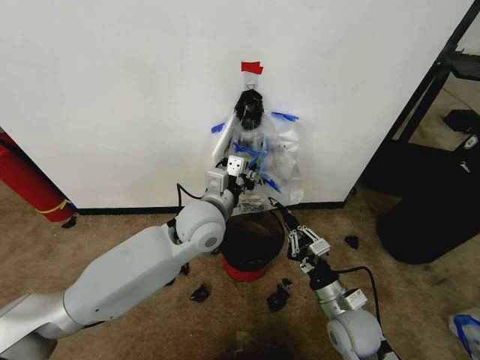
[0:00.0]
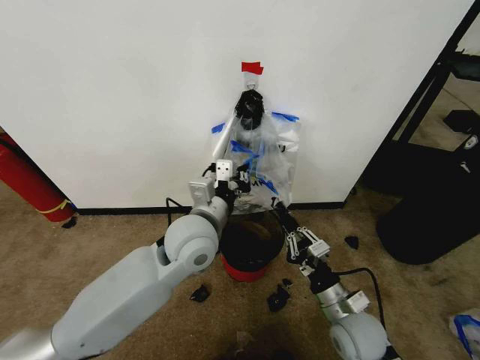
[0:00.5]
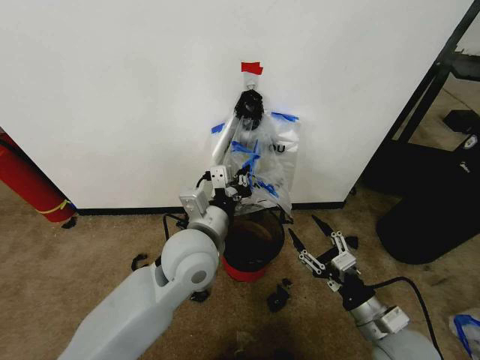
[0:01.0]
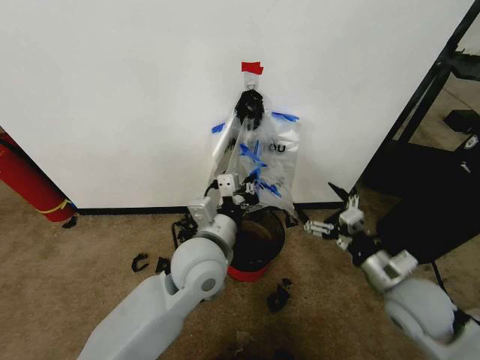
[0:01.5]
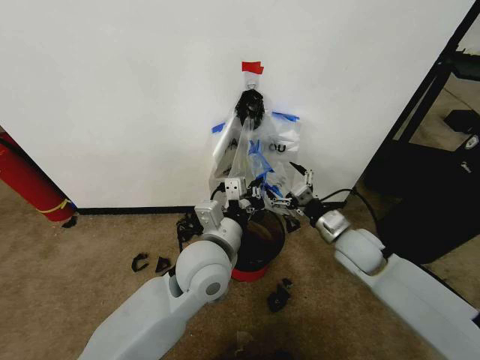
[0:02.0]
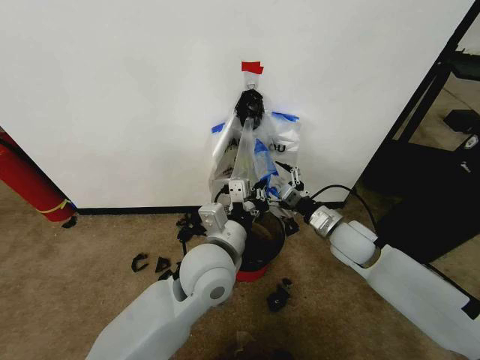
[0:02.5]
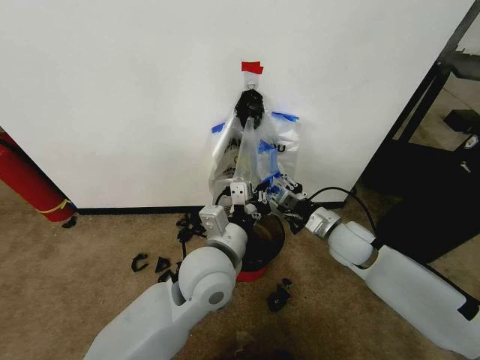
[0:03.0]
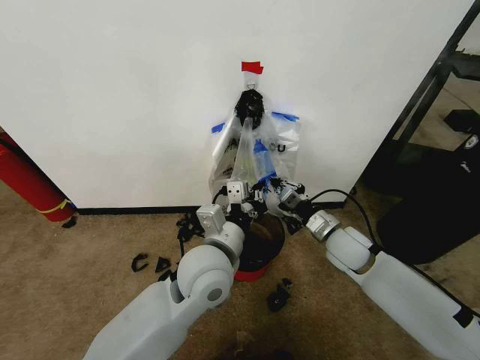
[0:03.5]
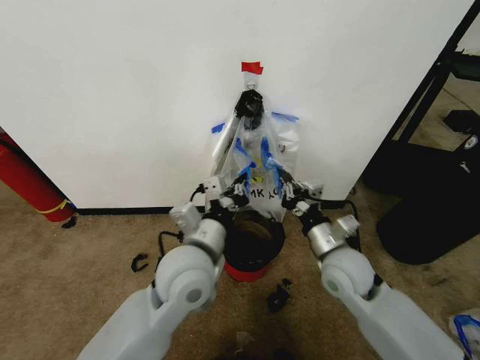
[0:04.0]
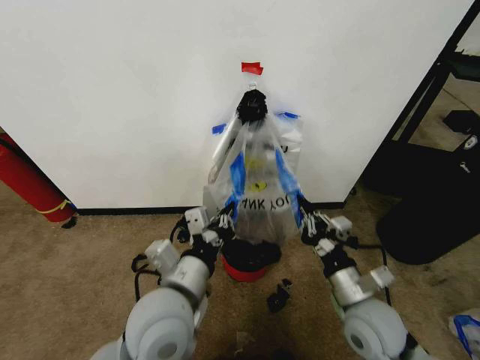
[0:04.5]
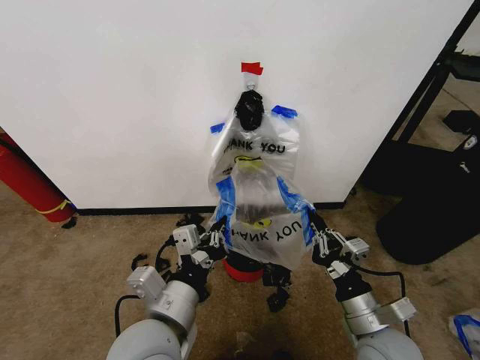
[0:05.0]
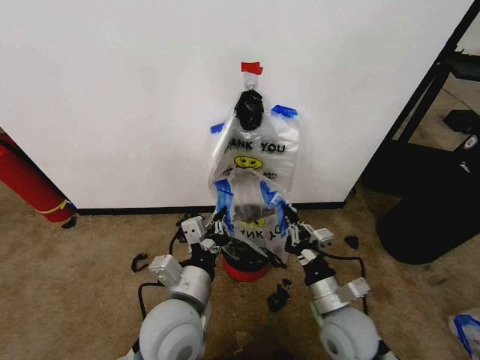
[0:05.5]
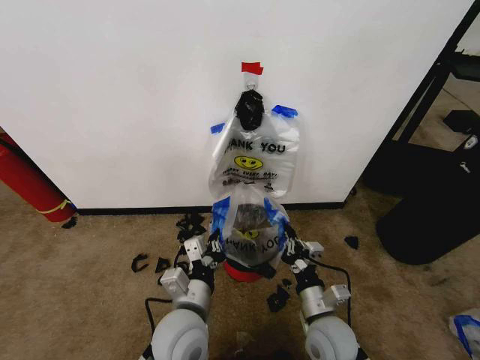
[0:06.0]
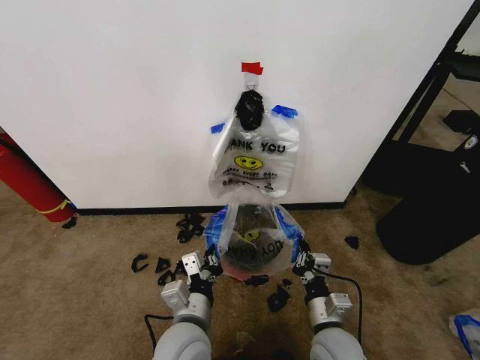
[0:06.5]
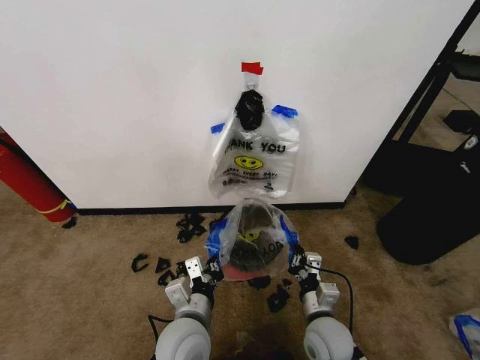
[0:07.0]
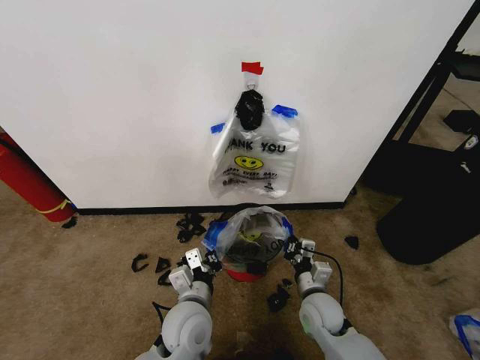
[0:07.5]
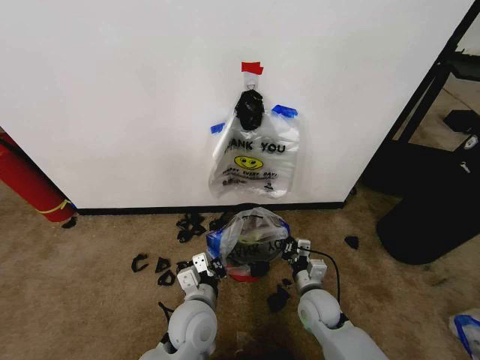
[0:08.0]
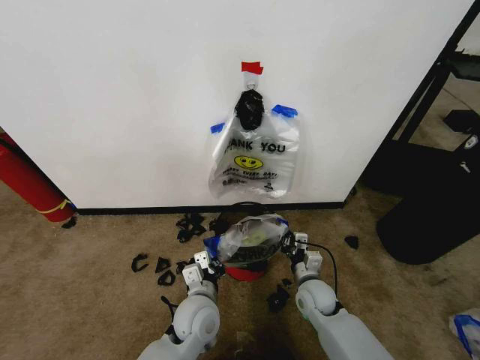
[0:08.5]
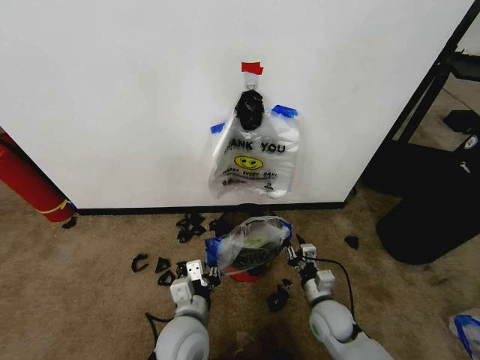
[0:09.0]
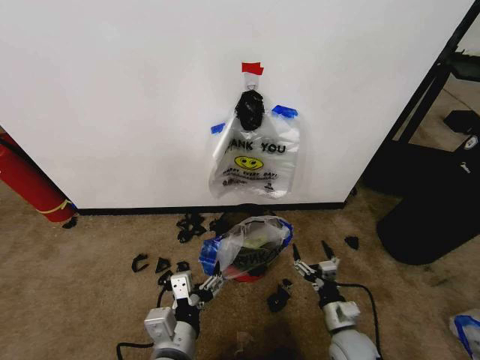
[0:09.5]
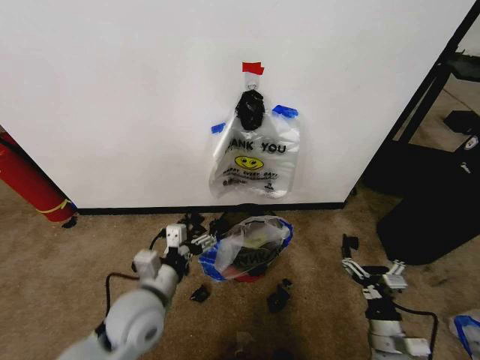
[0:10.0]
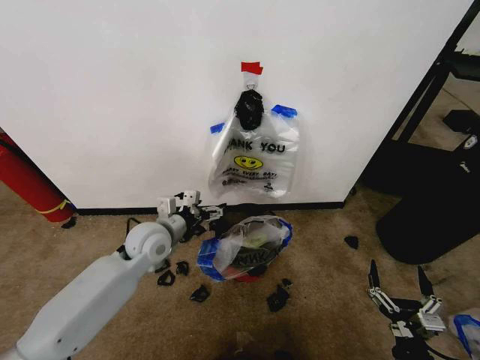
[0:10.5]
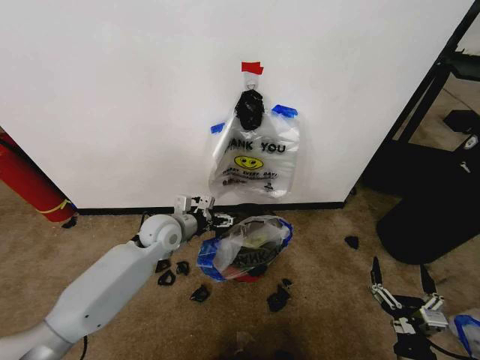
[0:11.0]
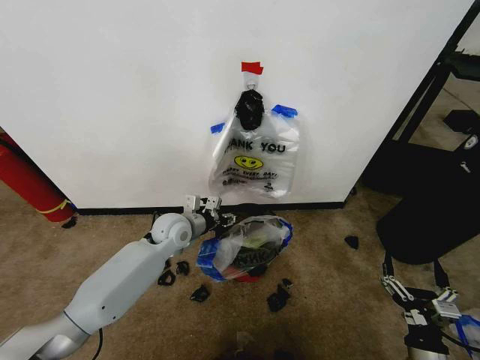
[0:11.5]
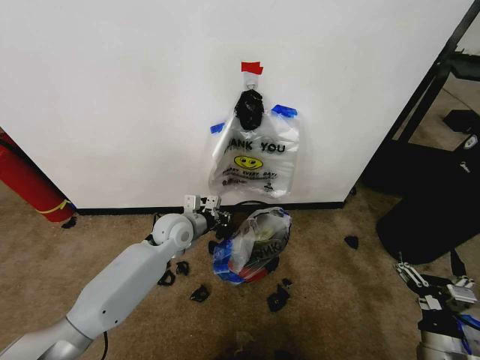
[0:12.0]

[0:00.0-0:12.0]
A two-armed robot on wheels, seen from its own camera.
Task of the whole recording: Pick up the garbage bag from the wall and place it over the trash bin.
0:00.0 to 0:02.0: The right gripper heads forward and upward, covering roughly 15 cm, and opens, while the left gripper is displaced backward by approximately 10 cm.
0:02.0 to 0:04.0: The right gripper travels backward and to the left by some 10 cm, and closes.
0:04.0 to 0:06.0: The grippers both shift downward and backward by approximately 15 cm.
0:06.0 to 0:08.0: The left gripper moves about 5 cm, while the right gripper travels forward and downward by roughly 10 cm.
0:08.0 to 0:10.0: The left gripper goes about 10 cm to the left and upward, and opens its fingers. Meanwhile the right gripper moves backward and to the right, about 15 cm, and opens.
0:10.0 to 0:12.0: The right gripper travels to the right by about 5 cm. The left gripper moves forward, roughly 25 cm, and closes up.

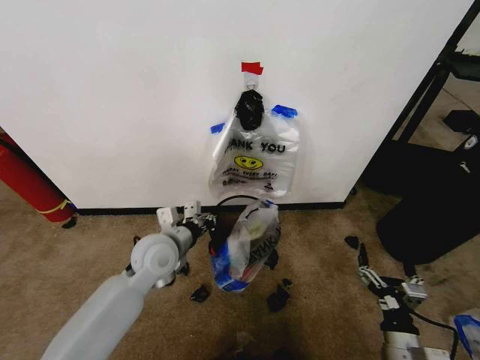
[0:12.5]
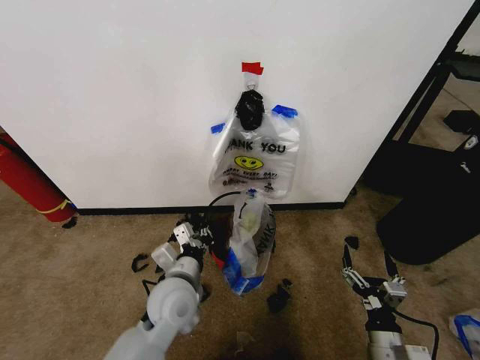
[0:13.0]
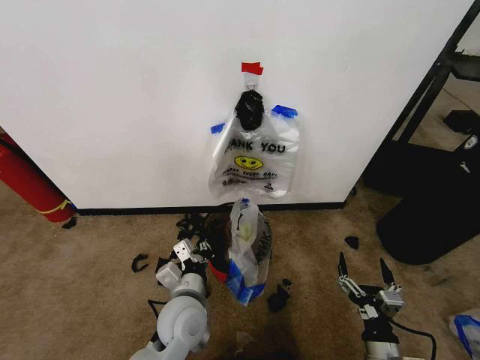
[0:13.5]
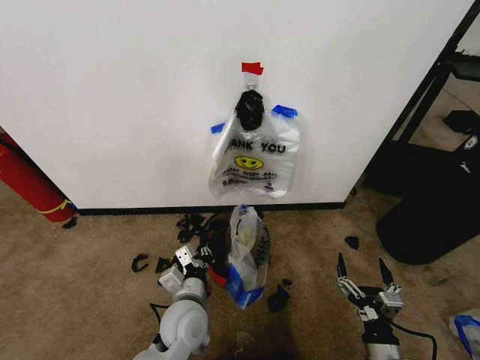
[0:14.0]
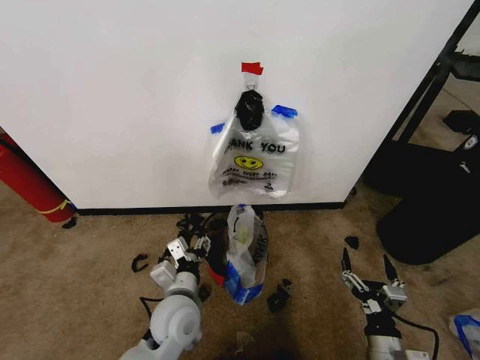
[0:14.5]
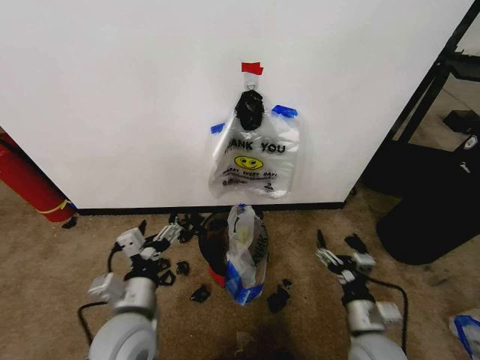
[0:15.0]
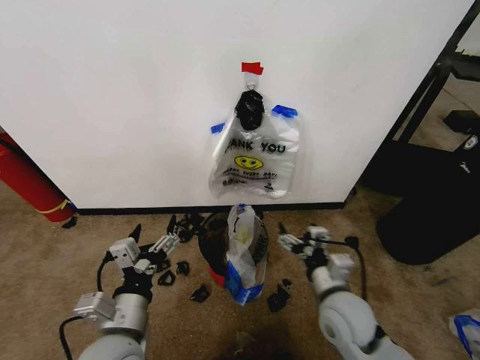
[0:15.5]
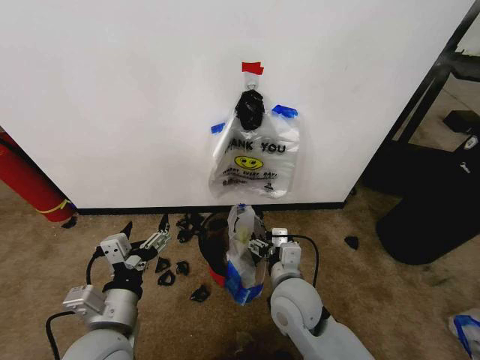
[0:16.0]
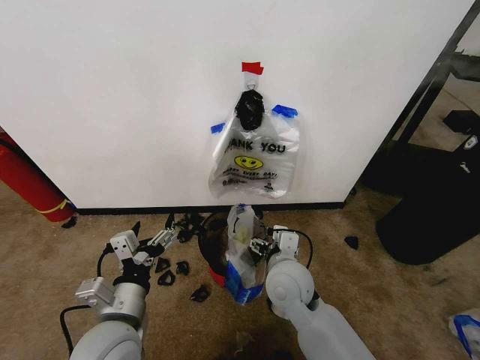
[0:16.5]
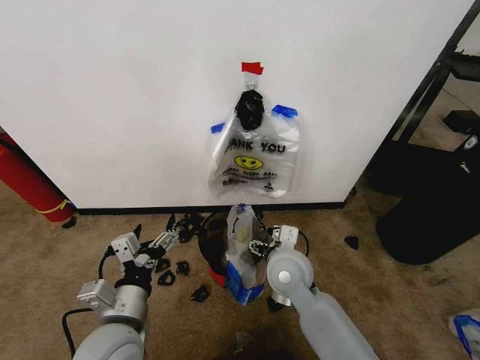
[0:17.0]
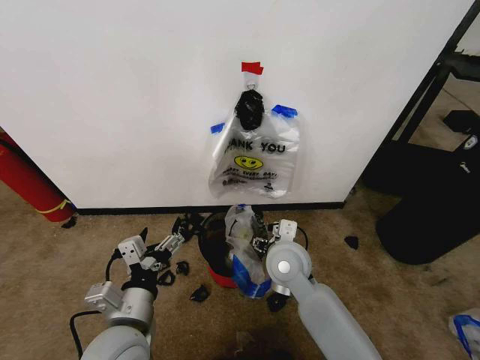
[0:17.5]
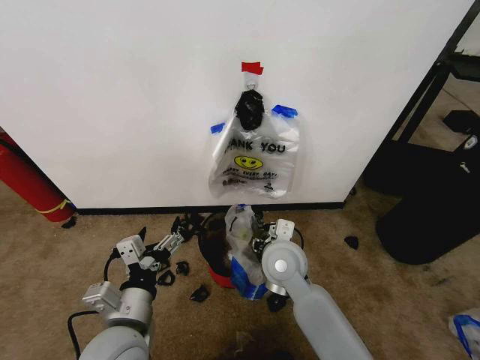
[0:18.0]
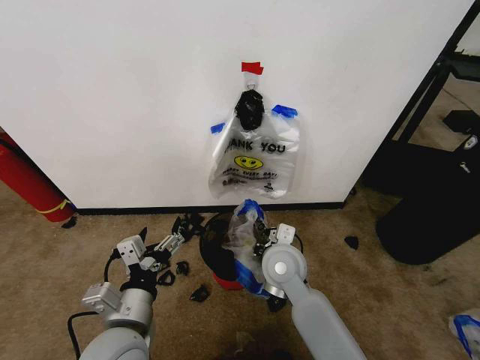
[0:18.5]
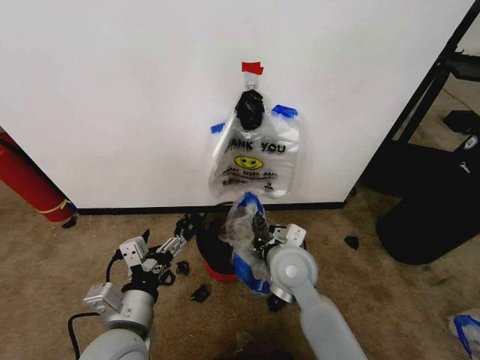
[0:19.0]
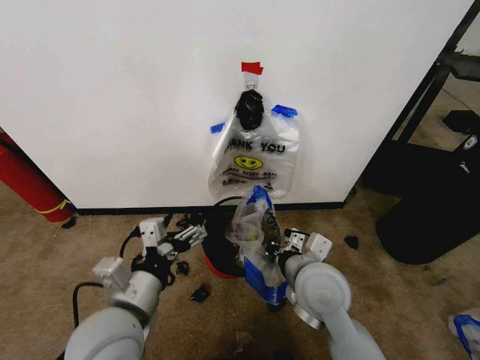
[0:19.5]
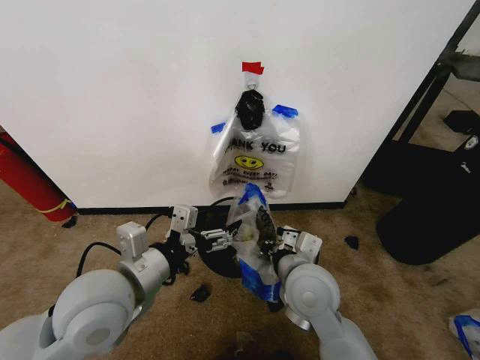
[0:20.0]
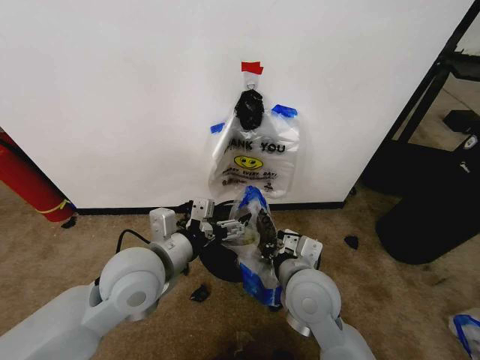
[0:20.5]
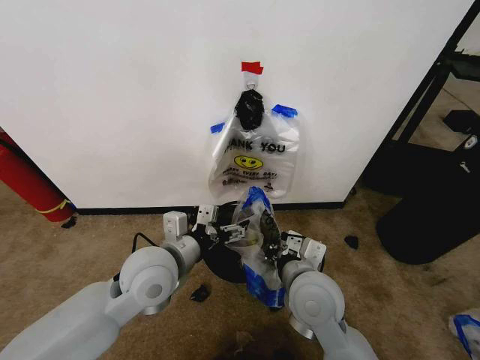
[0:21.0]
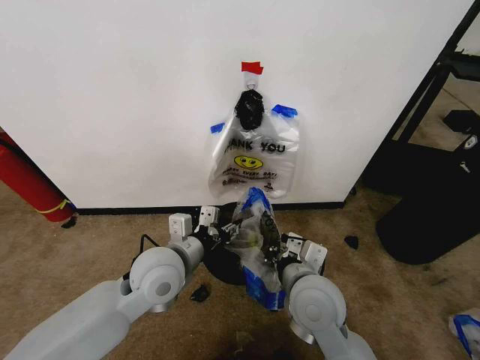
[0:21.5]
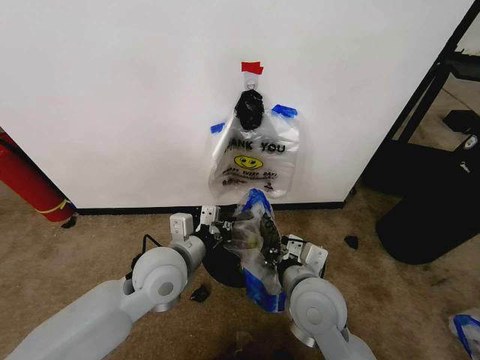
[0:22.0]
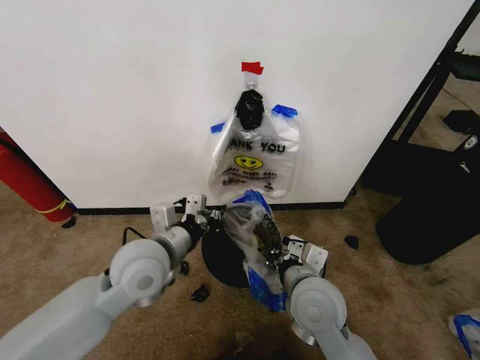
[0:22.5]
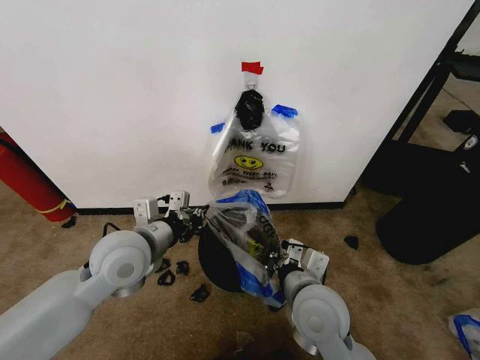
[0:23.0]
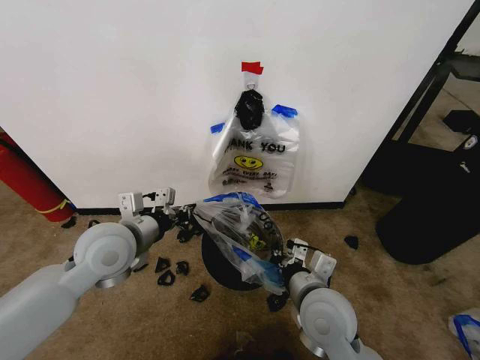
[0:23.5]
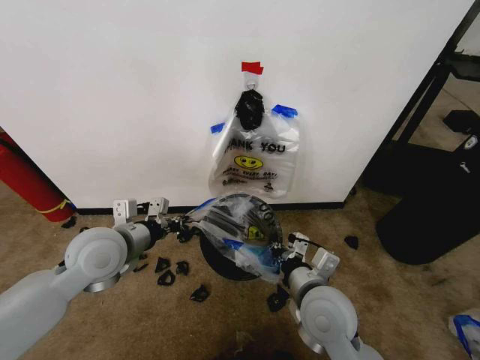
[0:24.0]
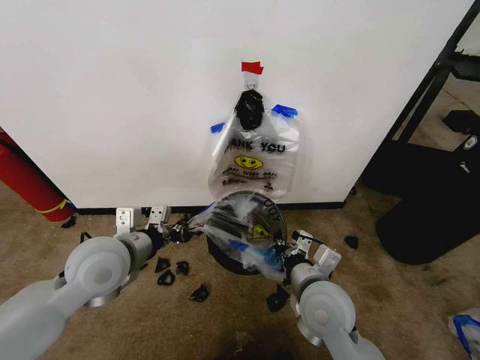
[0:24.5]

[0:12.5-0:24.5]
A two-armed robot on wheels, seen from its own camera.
Task of the whole recording: Pick up the garbage bag from the wall and place it over the trash bin.
0:12.5 to 0:14.5: The left gripper goes approximately 15 cm backward, downward and to the right, and opens.
0:14.5 to 0:16.5: The right gripper travels to the left, forward and upward by about 30 cm, while the left gripper goes some 15 cm upward, to the left and backward, and opens its fingers.
0:16.5 to 0:18.5: The right gripper closes.
0:18.5 to 0:20.5: The right gripper moves backward, about 5 cm. Meanwhile the left gripper goes roughly 10 cm forward and upward.
0:20.5 to 0:22.5: The left gripper closes up.
0:22.5 to 0:24.5: The left gripper shifts approximately 5 cm to the left.

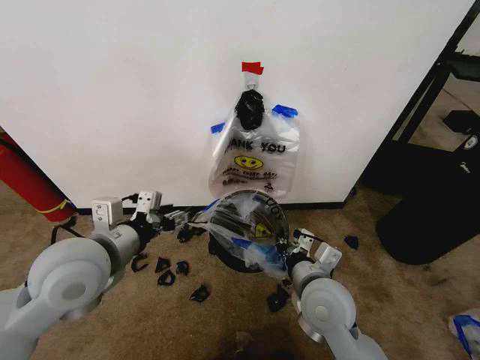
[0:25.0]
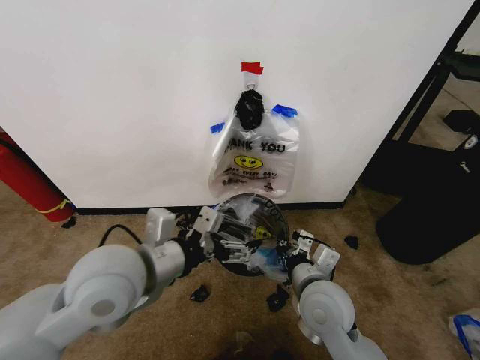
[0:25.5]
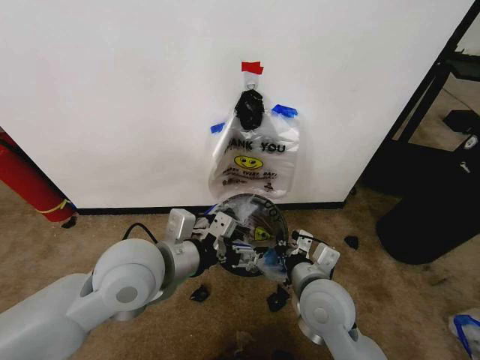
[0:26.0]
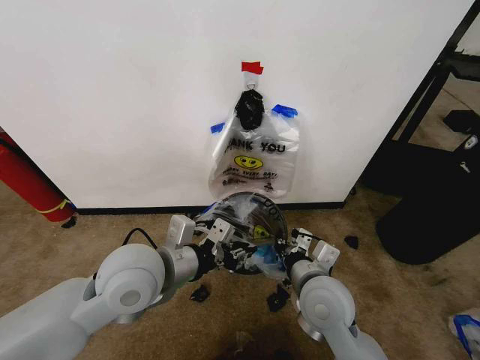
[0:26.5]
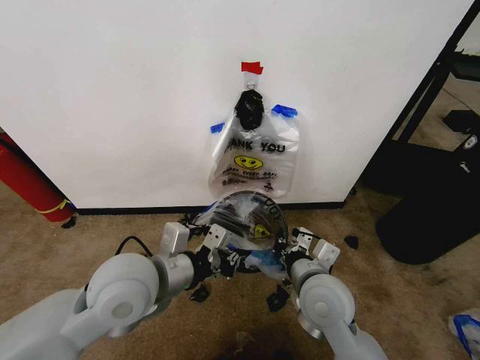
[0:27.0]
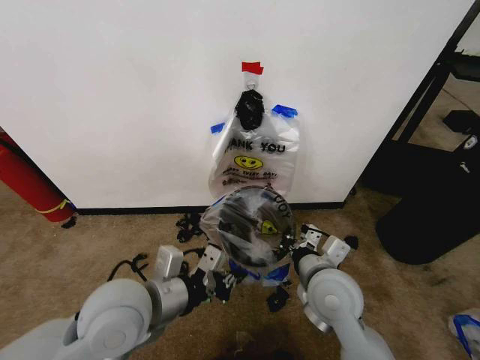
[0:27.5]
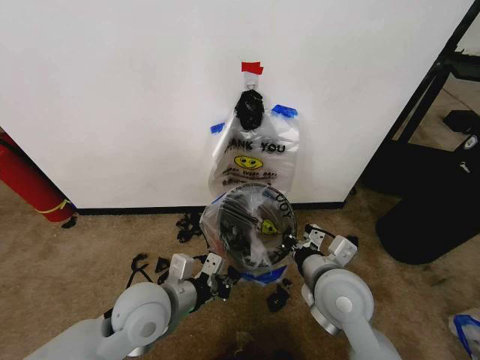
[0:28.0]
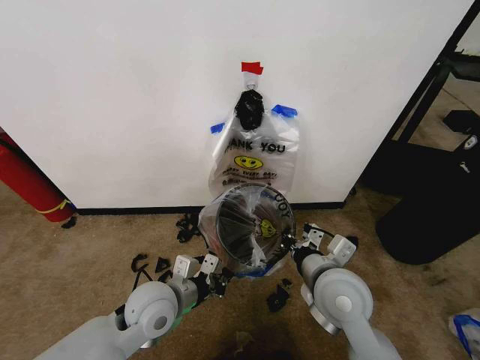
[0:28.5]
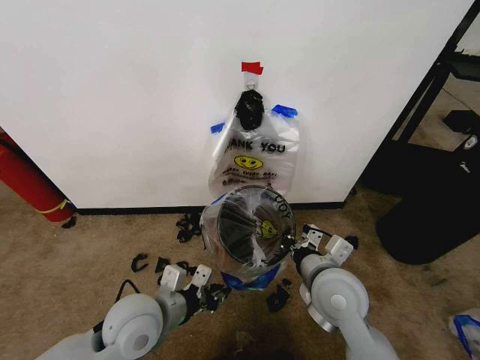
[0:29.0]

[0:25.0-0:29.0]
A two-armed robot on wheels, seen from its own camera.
Task of the whole recording: Pick up the garbage bag from the wall and place it over the trash bin.
0:25.0 to 0:27.0: The left gripper travels to the right by roughly 5 cm, and closes up.
0:27.0 to 0:29.0: The left gripper shifts some 10 cm downward.
